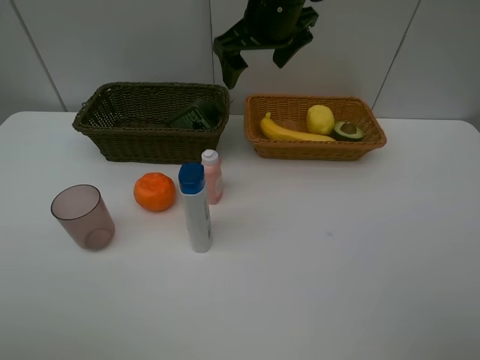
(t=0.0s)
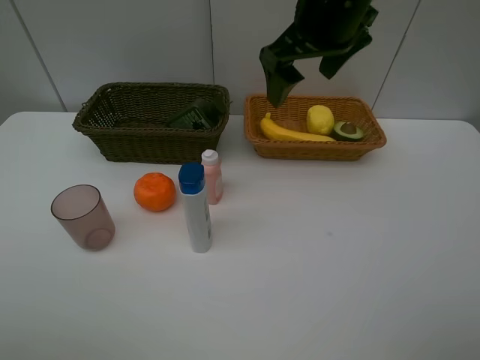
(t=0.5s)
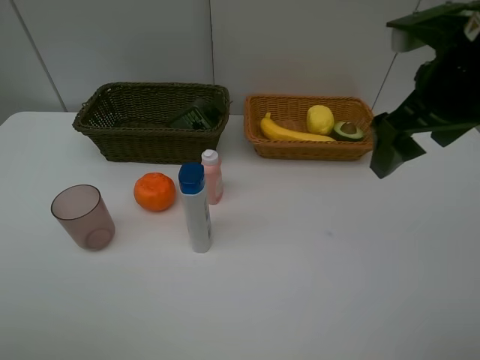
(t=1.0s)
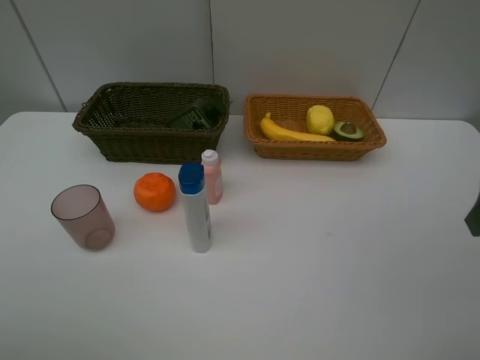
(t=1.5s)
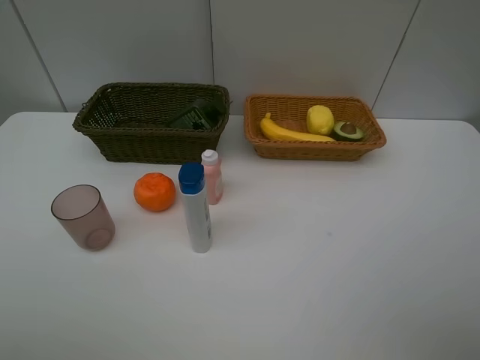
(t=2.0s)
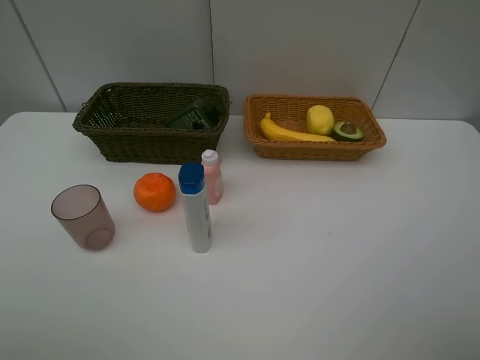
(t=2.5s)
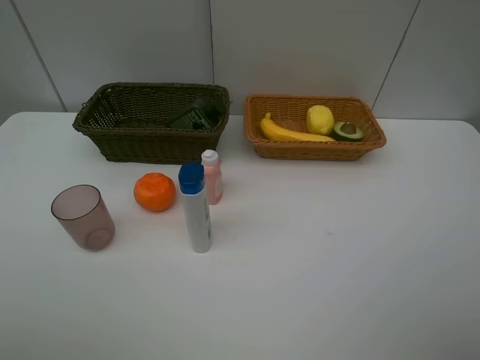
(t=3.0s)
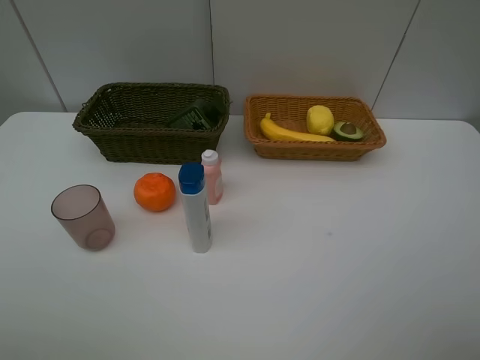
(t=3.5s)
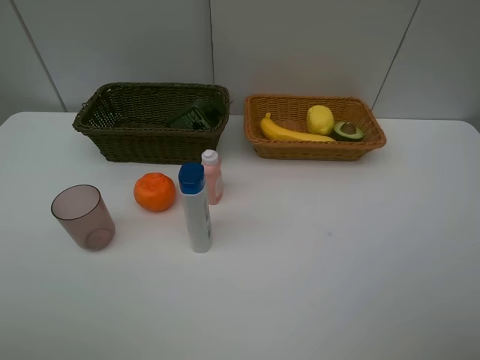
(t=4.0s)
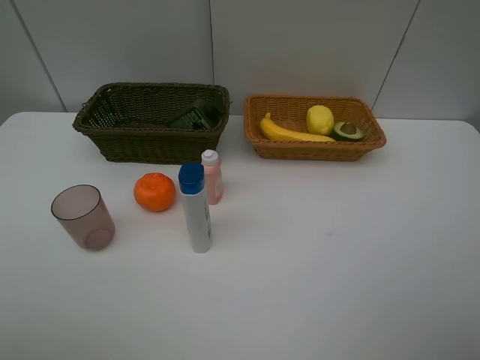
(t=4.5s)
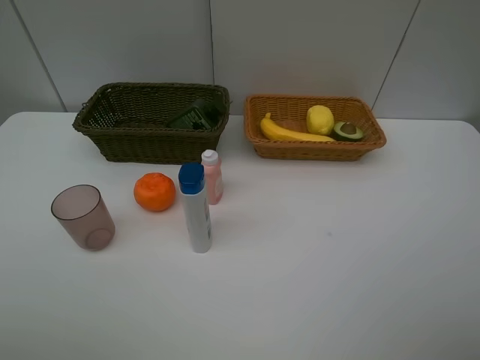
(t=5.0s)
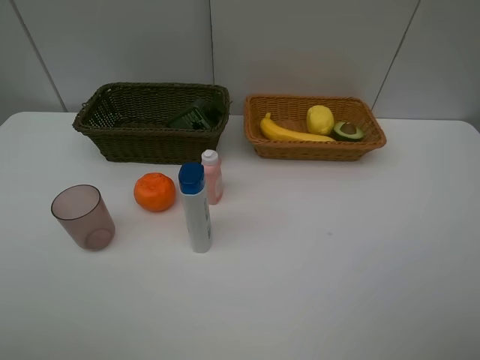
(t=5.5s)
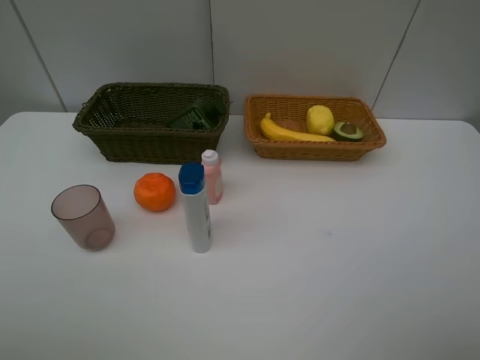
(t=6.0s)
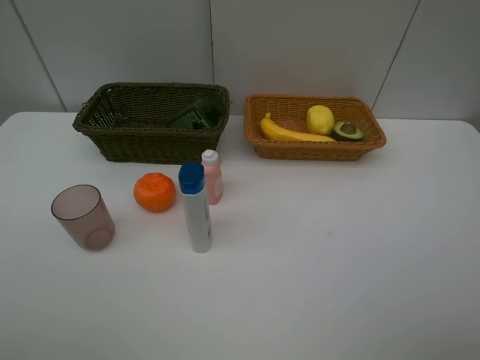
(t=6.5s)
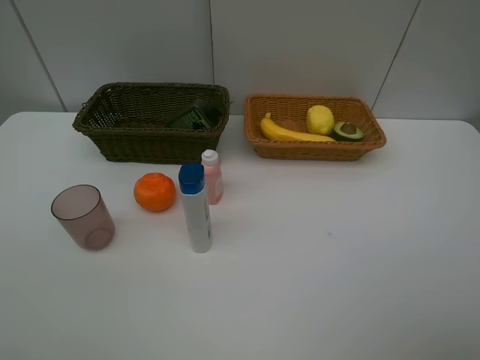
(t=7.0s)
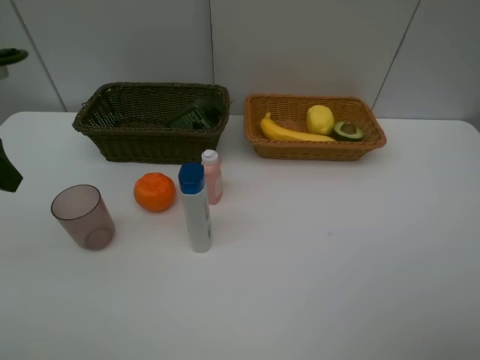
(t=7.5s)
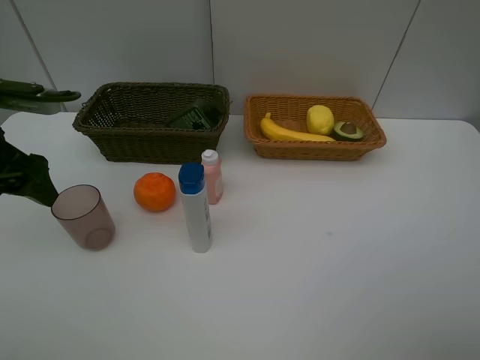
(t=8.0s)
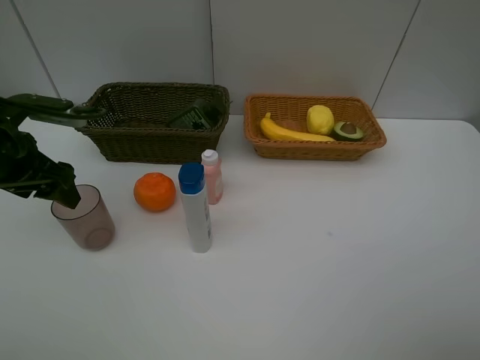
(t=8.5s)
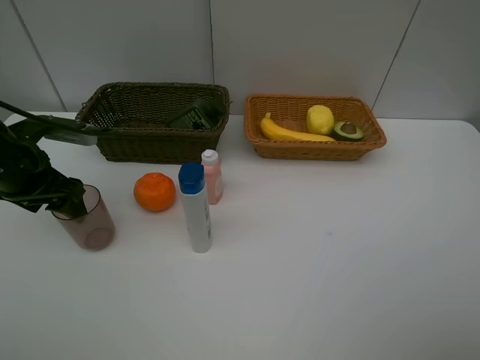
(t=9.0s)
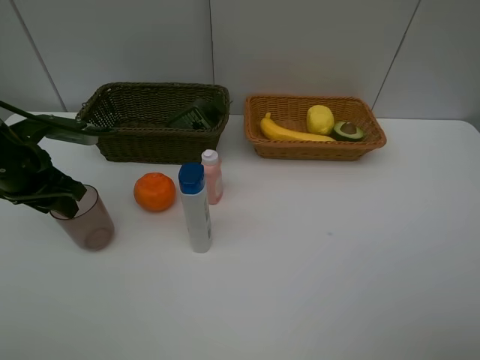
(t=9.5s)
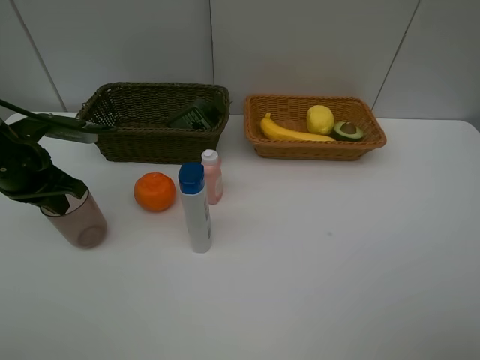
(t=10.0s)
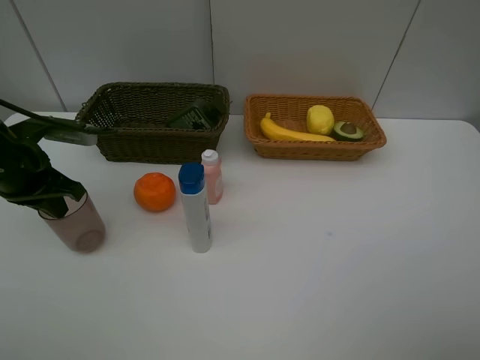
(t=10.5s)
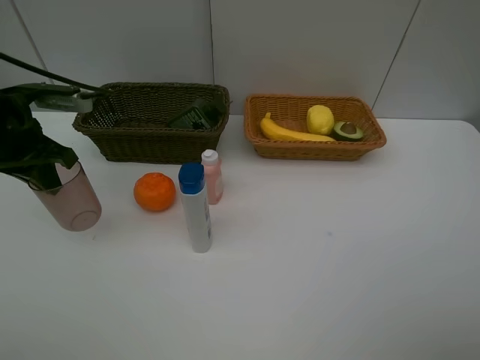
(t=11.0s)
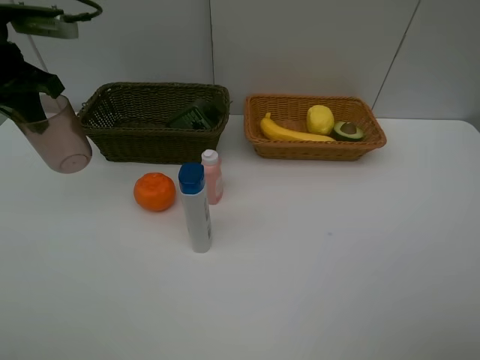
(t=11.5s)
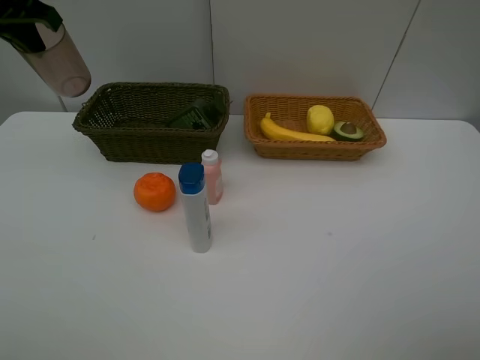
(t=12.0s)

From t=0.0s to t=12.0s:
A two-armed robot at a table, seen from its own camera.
Task of the whole recording: Place multiple objects separately in different baskets.
Step, from t=0.0s to t=10.5s: Pick up the red cup with left gripper.
From t=0.0s to t=2.0s: The right gripper travels backward and to the right by roughly 40 cm.
From t=4.0s to t=6.0s: Neither gripper changes place.
From t=6.0s to t=8.0s: The left gripper travels forward by about 25 cm.
From t=8.0s to t=10.0s: The left gripper shifts approximately 5 cm downward, and closes up.
From t=10.0s to t=12.0s: The left gripper is displaced upward and forward by approximately 20 cm.

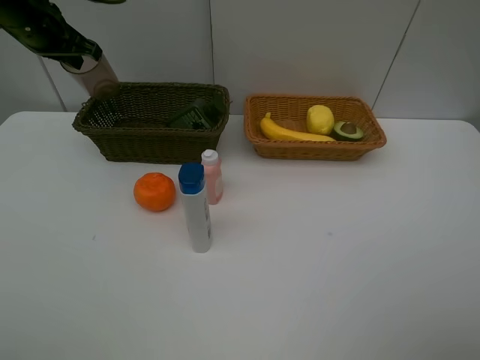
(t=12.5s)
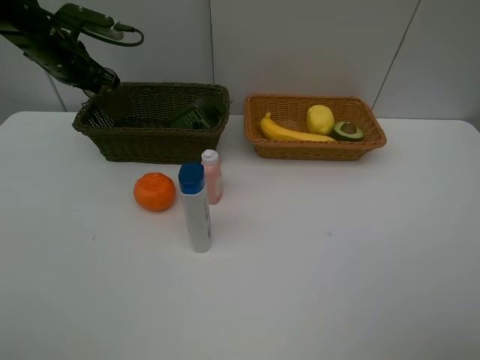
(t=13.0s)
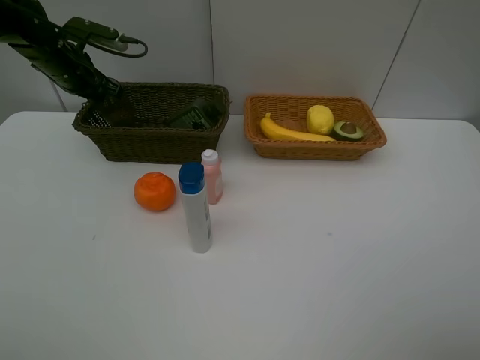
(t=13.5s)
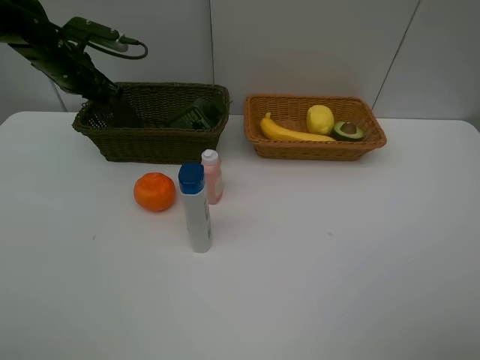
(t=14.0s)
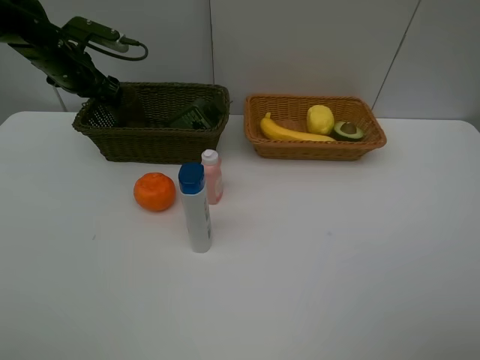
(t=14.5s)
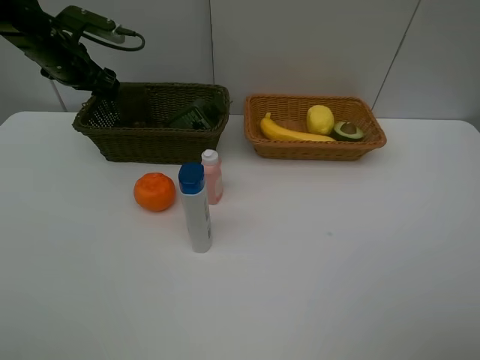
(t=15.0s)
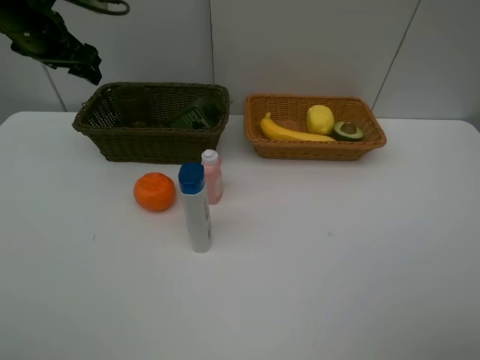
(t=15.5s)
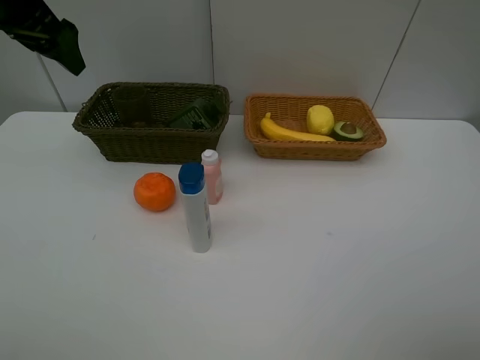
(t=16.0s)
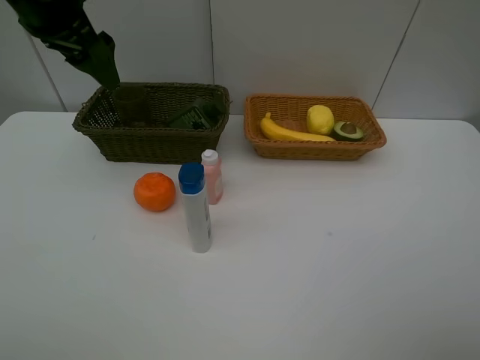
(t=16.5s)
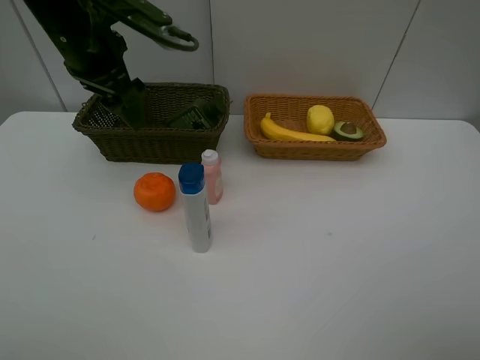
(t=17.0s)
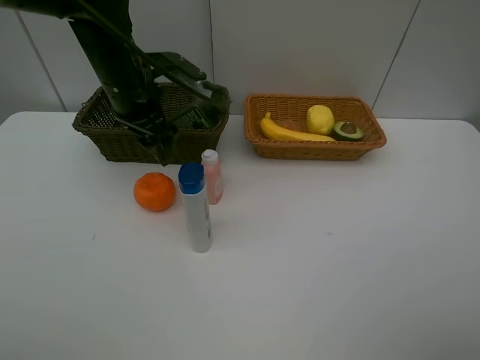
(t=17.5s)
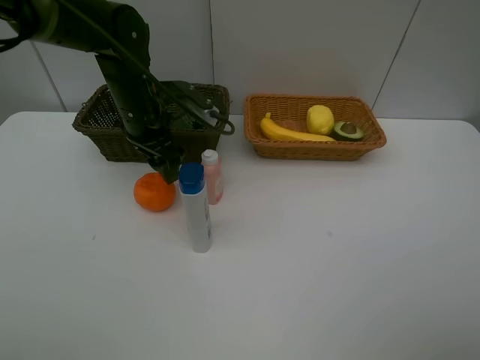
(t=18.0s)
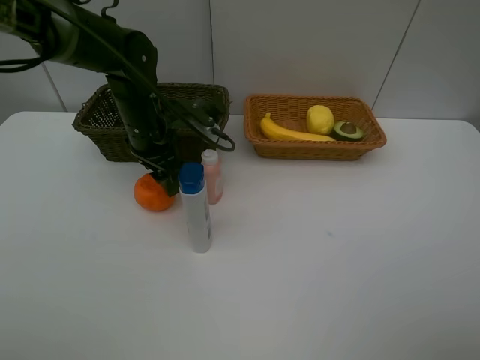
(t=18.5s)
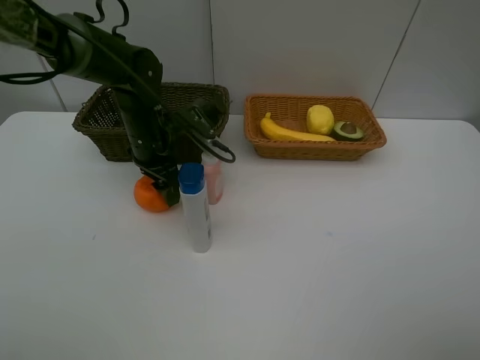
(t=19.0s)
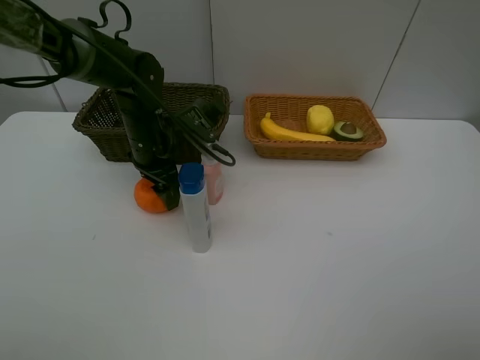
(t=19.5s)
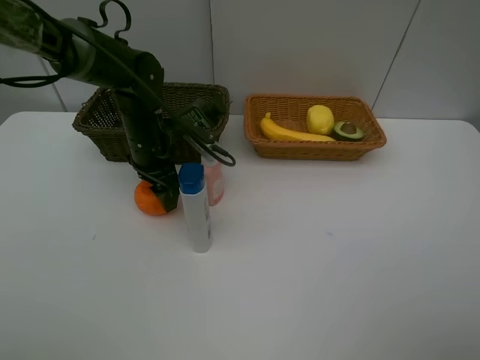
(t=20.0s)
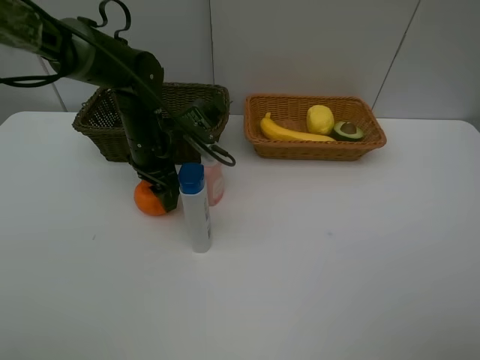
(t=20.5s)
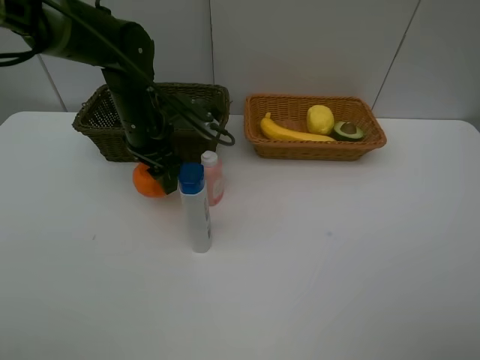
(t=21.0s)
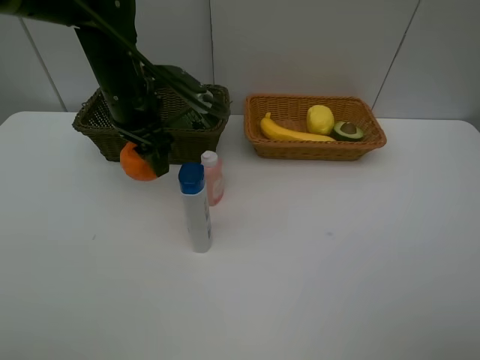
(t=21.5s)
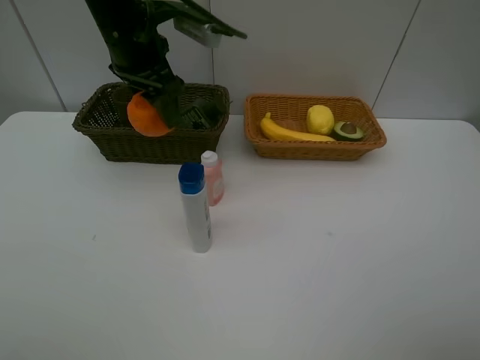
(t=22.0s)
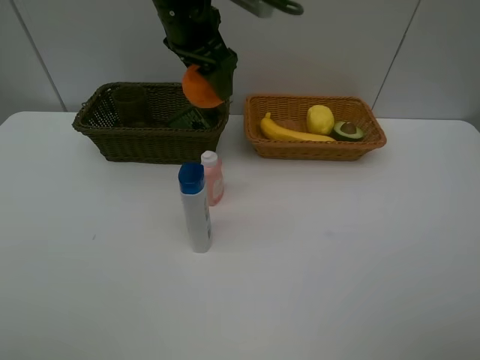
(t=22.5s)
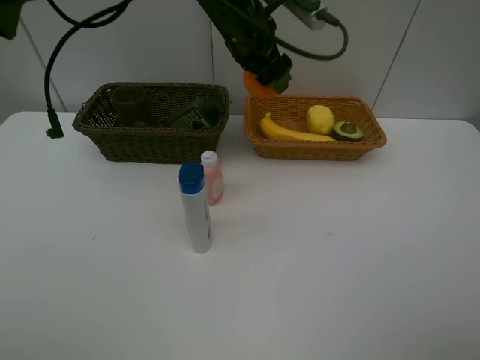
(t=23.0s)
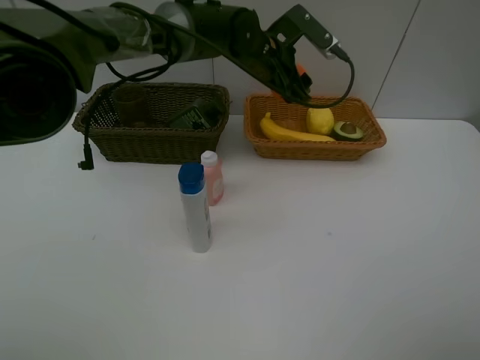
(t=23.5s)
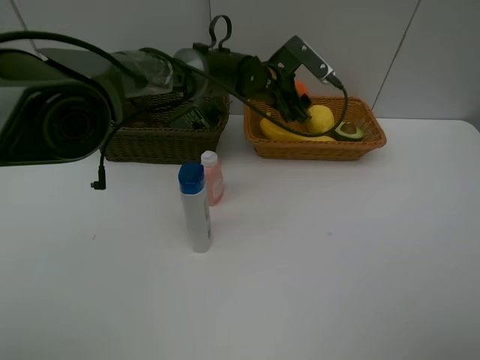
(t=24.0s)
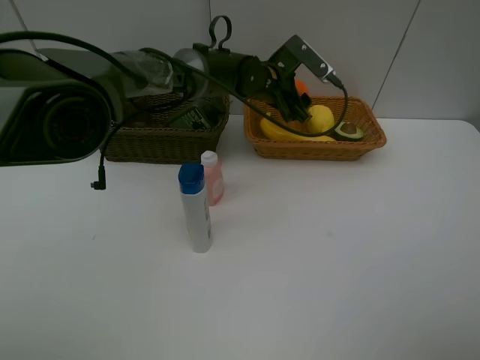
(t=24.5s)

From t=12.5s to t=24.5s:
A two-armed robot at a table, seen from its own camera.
Task of the whole recording: Place multiple objects separately in different baskets.
Step, from t=12.5s to t=15.0s: Place the red cup in the dark basket with left gripper.
Step, from t=15.5s to t=20.5s: Pick up the orange with left gripper.
From t=12.5s to t=14.5s: The left gripper shifts approximately 5 cm downward, and opens up.
From t=14.5s to t=16.5s: The left gripper is displaced upward, backward and to the right by approximately 20 cm.
From t=16.5s to t=18.5s: The left gripper is displaced downward by roughly 20 cm.
From t=18.5s to t=20.5s: The grippers stay close to where they were, moving slightly.
From t=20.5s to t=22.5s: The left gripper heads upward and to the right, covering about 20 cm.
From t=22.5s to t=24.5s: The left gripper moves downward, to the right and forward, approximately 20 cm.

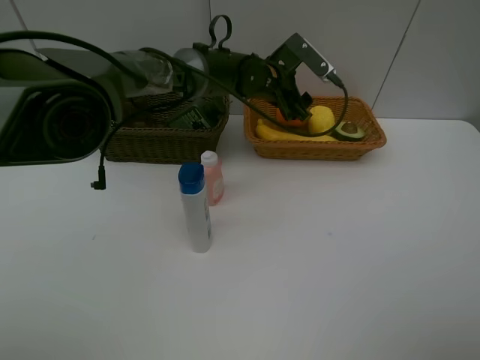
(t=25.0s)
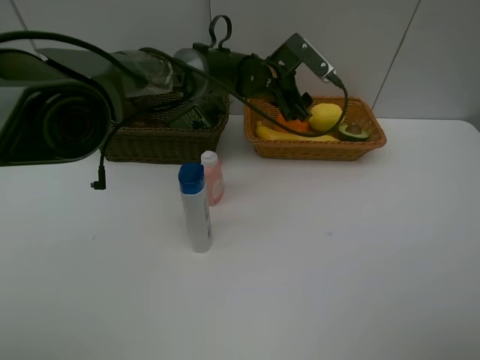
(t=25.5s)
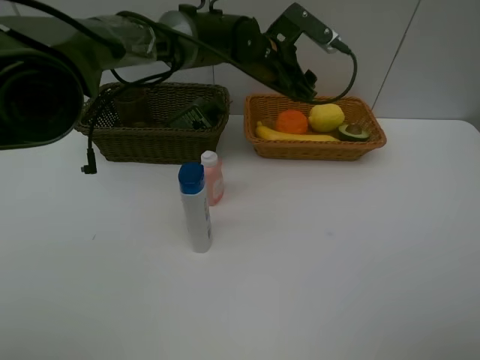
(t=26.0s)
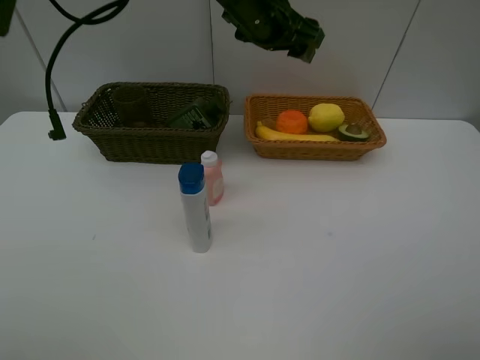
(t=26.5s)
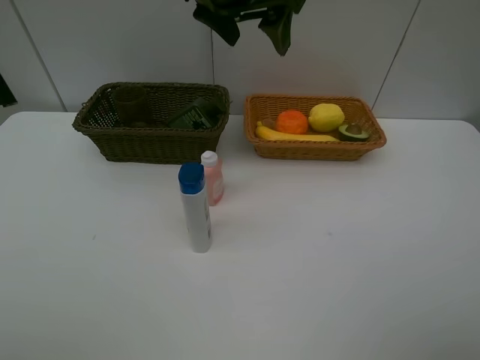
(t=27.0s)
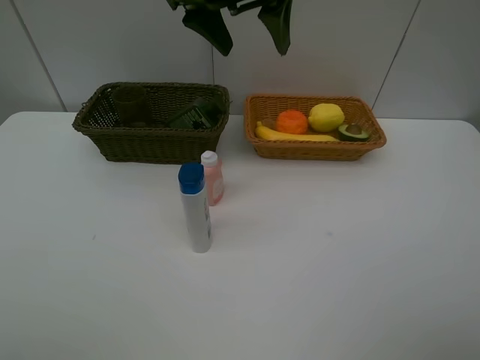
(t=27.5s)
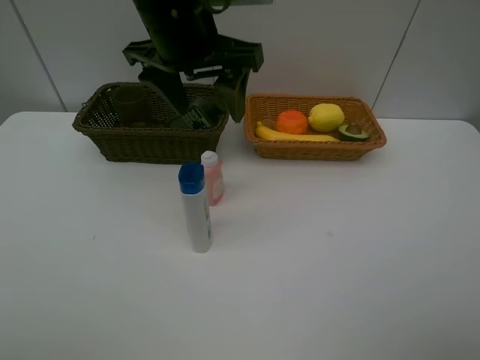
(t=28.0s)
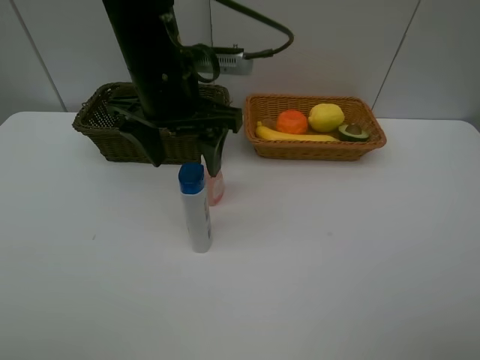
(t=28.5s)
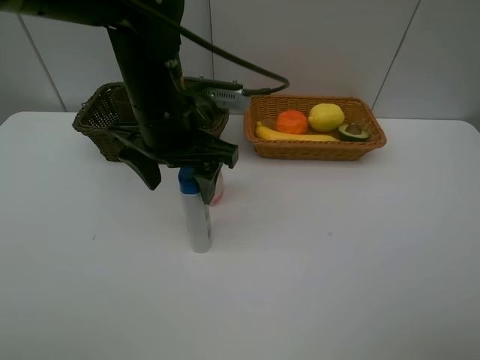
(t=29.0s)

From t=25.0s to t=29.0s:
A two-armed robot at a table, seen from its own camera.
Task of the whole recording: Place multiple objects separately in different baskets.
From t=25.0s to t=27.0s: The left gripper goes some 20 cm upward and backward.
From t=27.0s to t=29.0s: The left gripper goes roughly 15 cm downward, backward and to the left.
